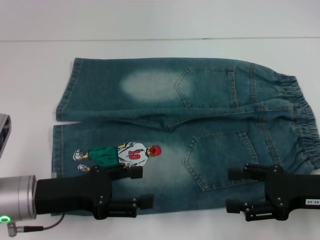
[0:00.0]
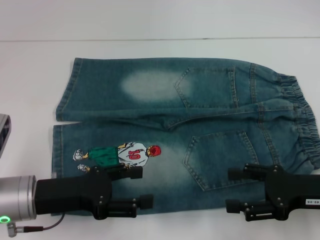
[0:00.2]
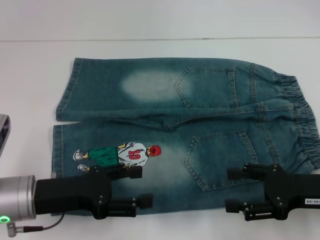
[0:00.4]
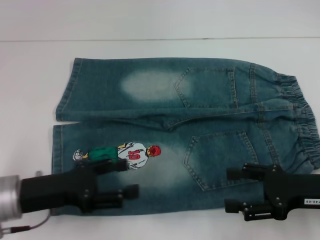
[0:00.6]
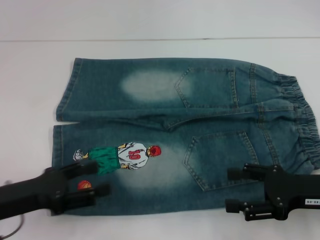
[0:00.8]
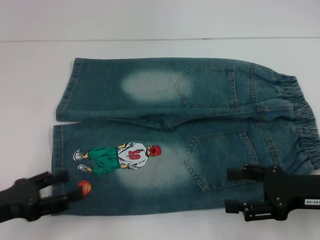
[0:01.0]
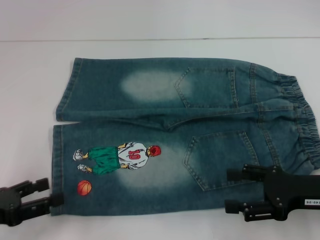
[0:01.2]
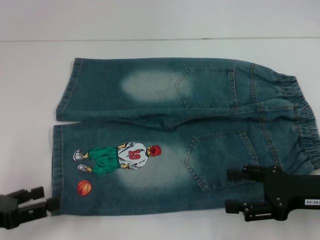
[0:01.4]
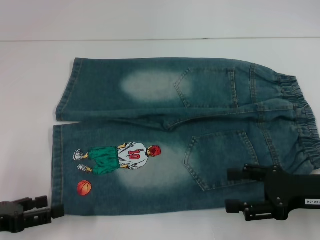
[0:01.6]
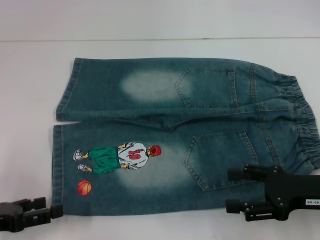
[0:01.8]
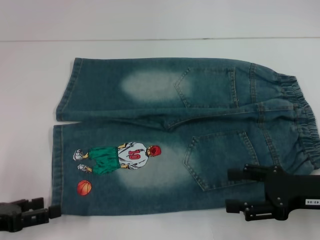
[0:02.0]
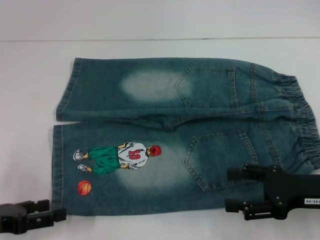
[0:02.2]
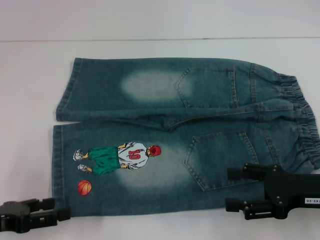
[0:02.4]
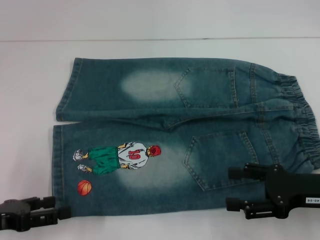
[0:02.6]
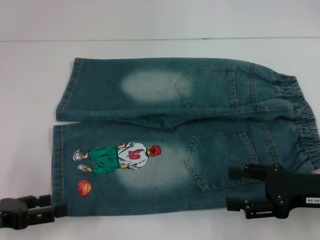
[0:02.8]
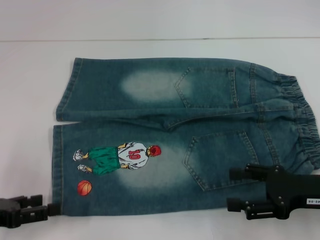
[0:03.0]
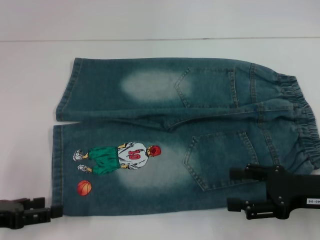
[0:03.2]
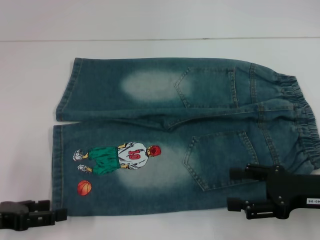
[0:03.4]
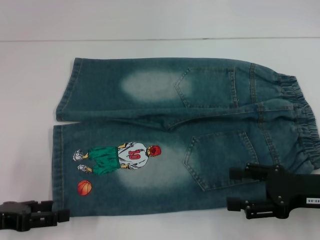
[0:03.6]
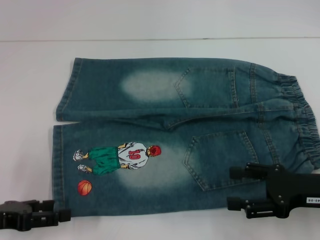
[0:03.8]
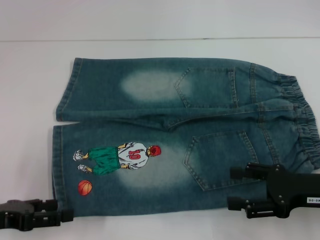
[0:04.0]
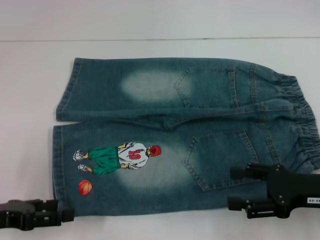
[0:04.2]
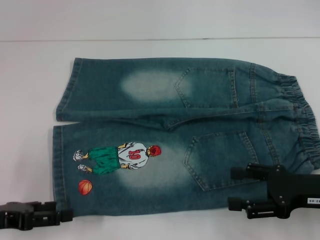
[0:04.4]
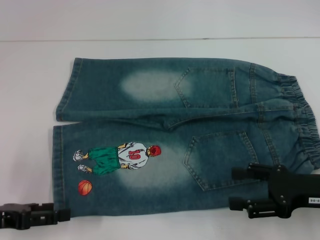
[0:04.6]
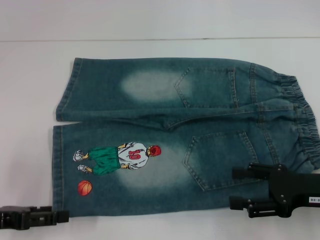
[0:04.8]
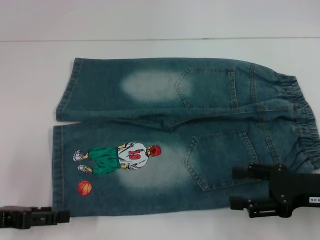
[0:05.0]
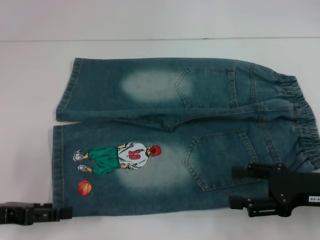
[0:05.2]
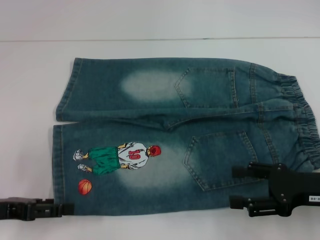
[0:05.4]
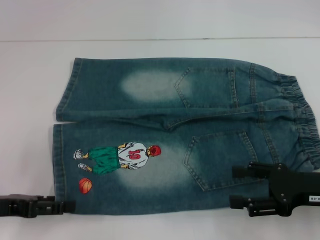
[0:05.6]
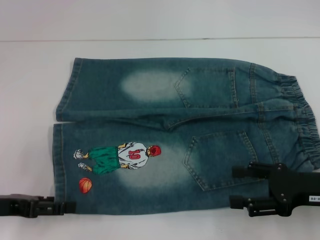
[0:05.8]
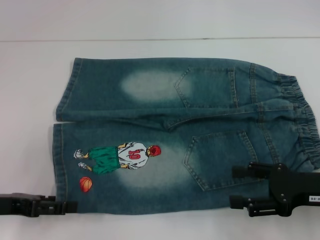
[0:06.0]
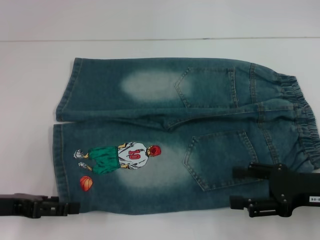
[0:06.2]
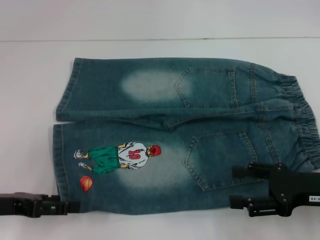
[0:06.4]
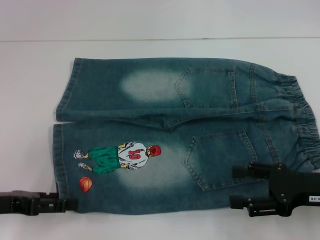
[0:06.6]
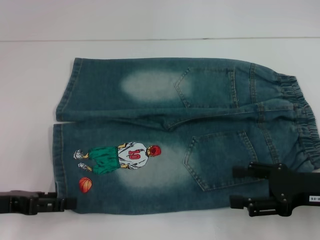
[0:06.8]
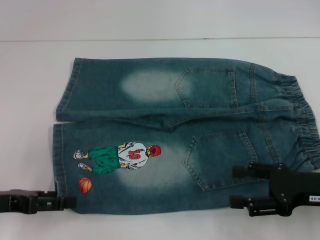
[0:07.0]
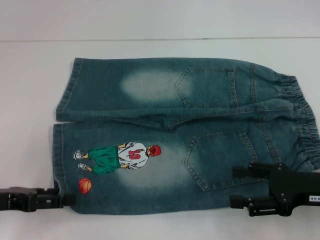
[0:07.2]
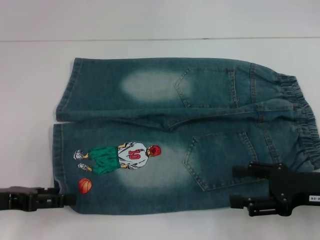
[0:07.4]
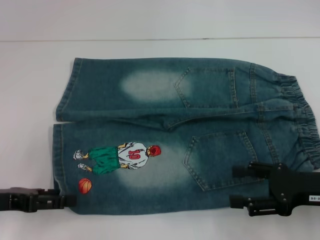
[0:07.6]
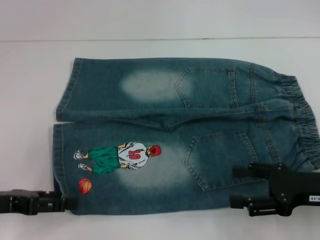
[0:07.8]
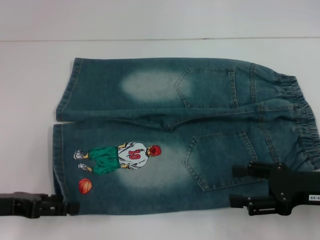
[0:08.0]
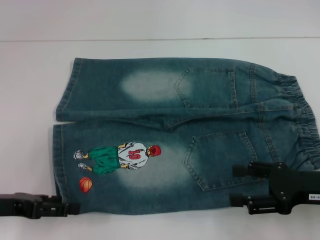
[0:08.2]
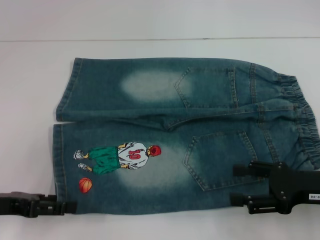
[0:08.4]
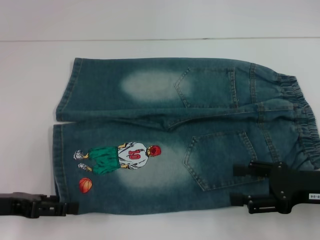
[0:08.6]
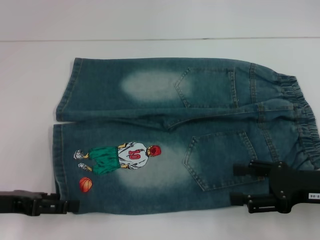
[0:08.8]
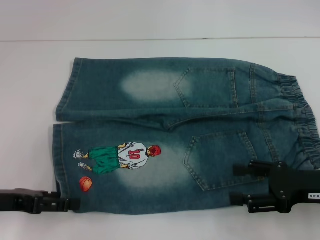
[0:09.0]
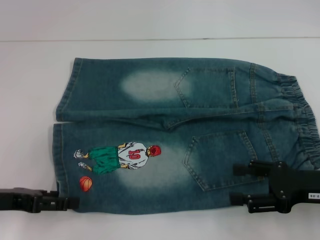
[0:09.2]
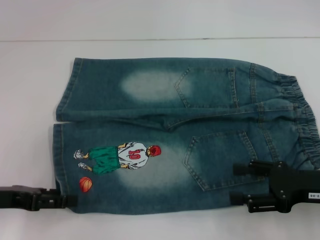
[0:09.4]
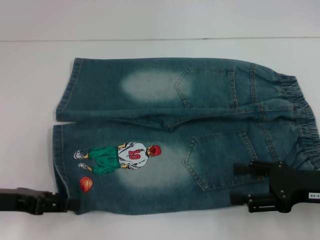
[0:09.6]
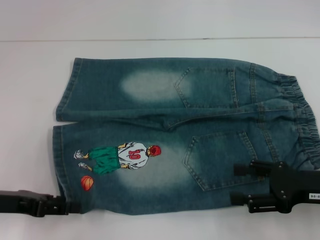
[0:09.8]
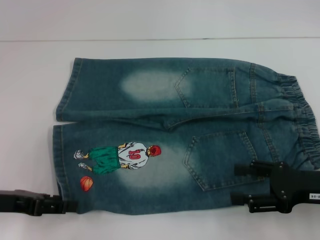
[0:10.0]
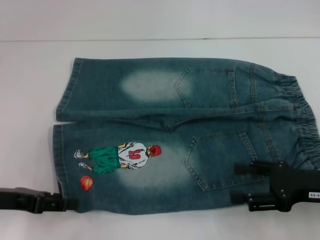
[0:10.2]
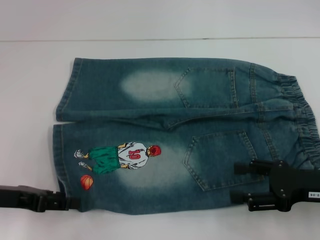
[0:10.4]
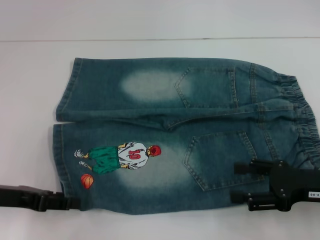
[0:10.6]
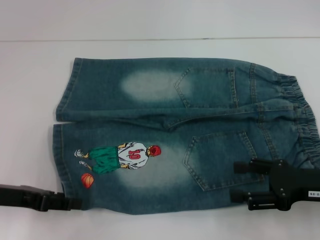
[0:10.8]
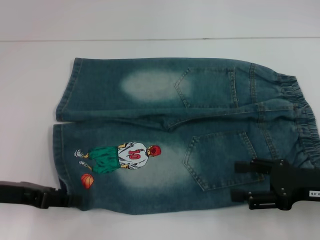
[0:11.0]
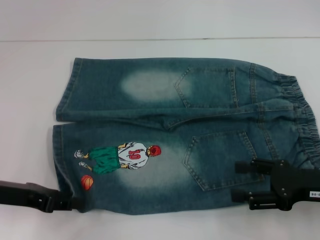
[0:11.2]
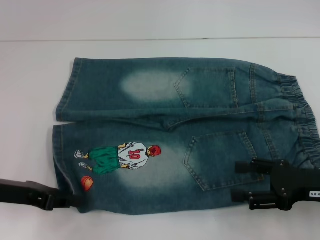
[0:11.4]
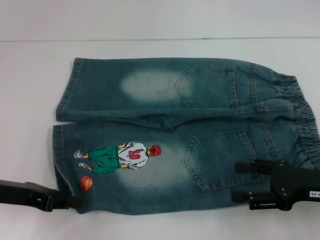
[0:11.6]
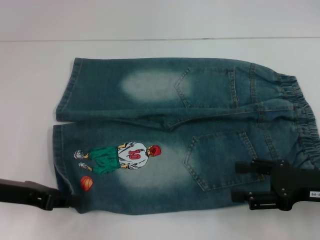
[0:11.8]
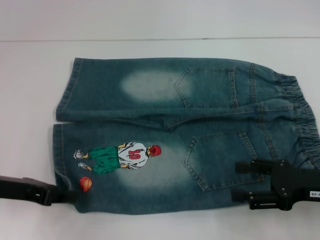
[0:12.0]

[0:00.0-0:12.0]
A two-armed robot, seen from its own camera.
Step, 0:00.0 to 0:03.4: Grab the lower left pant leg with your left hand.
0:00.0 to 0:01.6: The left gripper shifts approximately 10 cm to the left and backward.
0:01.6 to 0:03.0: The two grippers keep their place.
0:03.0 to 0:06.0: There are only small adjustments of the grippers.
0:06.0 to 0:09.0: Neither gripper changes place.
0:09.0 to 0:10.4: Both grippers stay about where they are.
0:10.4 to 0:12.0: The left gripper closes its fingers.

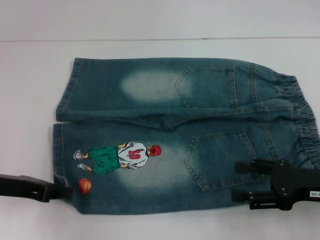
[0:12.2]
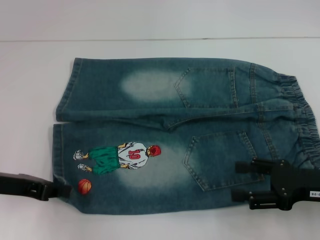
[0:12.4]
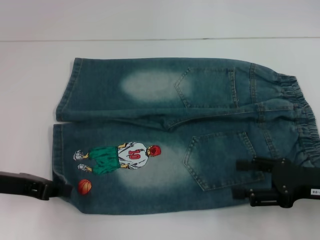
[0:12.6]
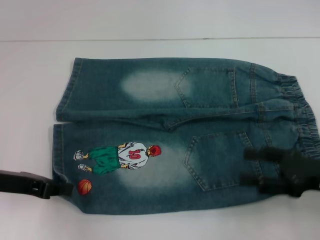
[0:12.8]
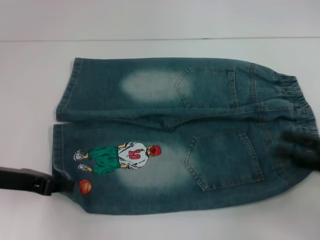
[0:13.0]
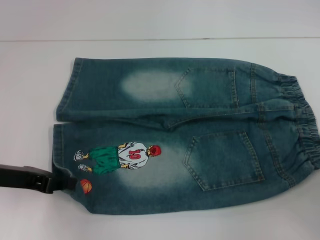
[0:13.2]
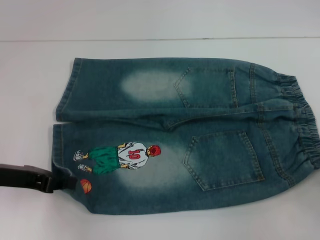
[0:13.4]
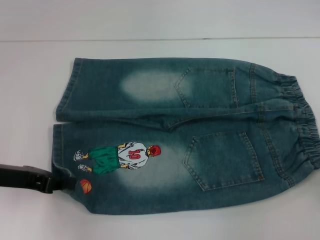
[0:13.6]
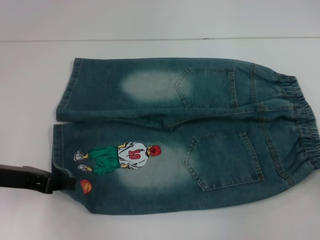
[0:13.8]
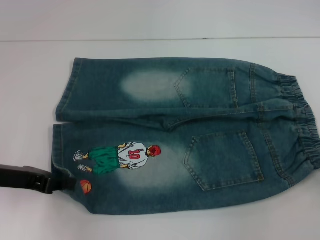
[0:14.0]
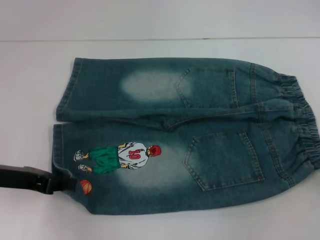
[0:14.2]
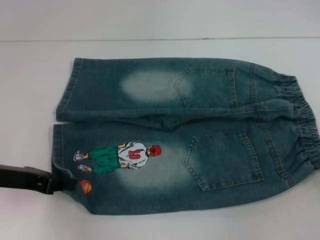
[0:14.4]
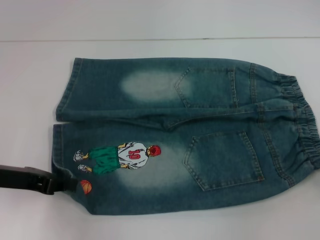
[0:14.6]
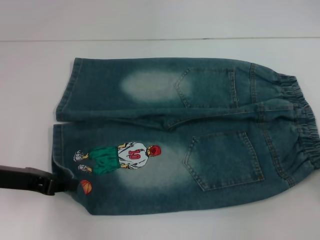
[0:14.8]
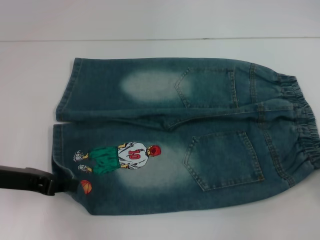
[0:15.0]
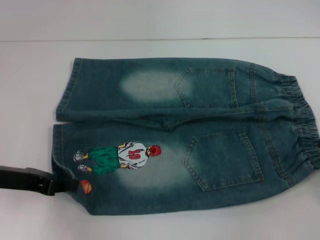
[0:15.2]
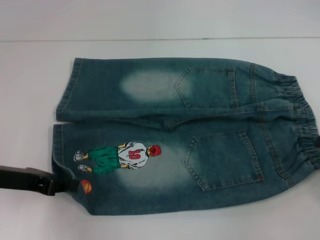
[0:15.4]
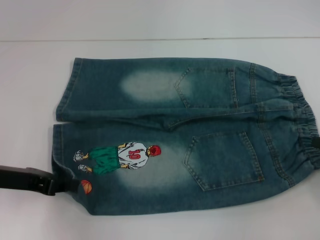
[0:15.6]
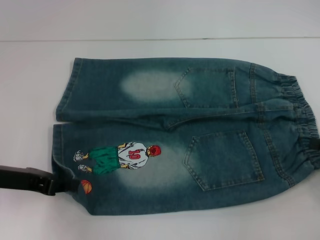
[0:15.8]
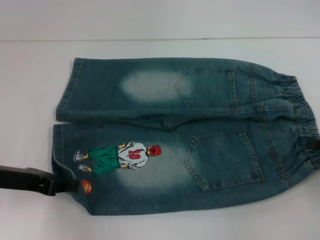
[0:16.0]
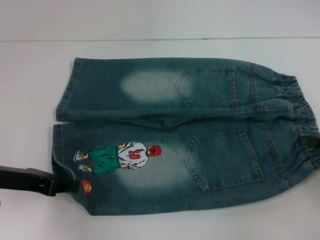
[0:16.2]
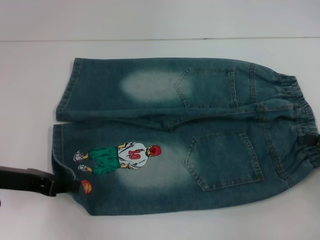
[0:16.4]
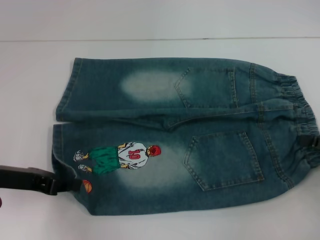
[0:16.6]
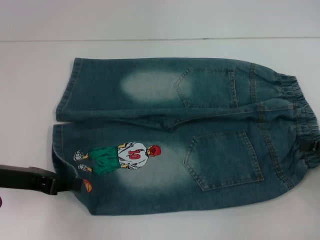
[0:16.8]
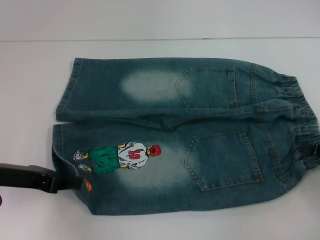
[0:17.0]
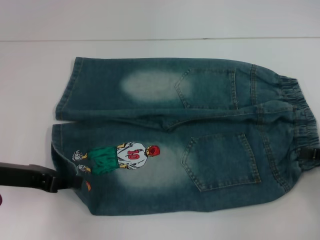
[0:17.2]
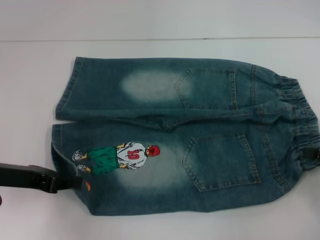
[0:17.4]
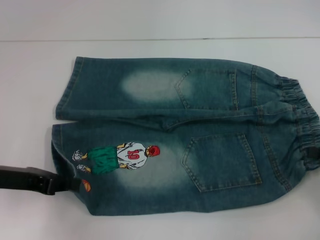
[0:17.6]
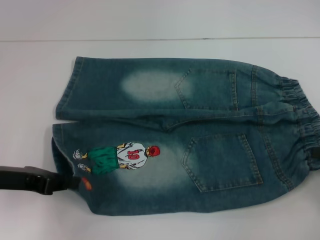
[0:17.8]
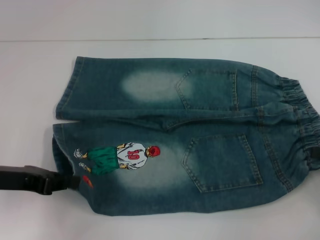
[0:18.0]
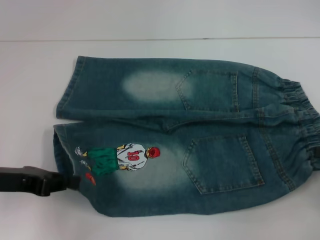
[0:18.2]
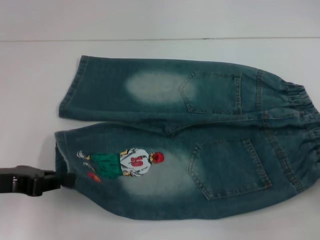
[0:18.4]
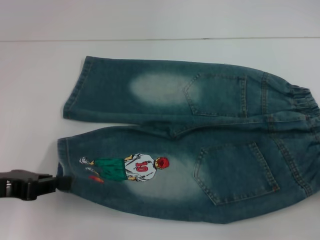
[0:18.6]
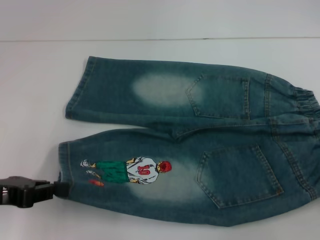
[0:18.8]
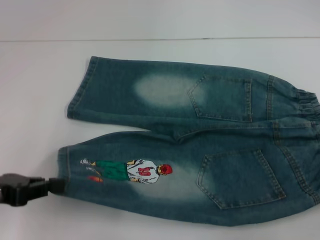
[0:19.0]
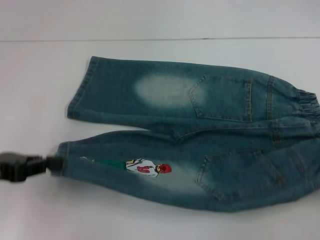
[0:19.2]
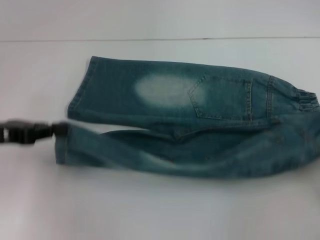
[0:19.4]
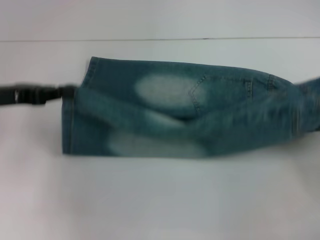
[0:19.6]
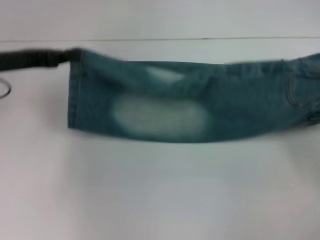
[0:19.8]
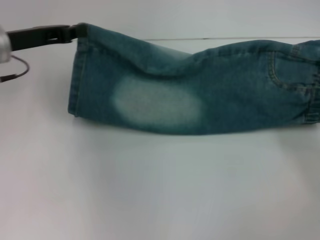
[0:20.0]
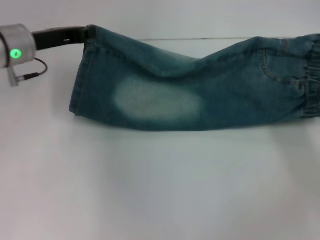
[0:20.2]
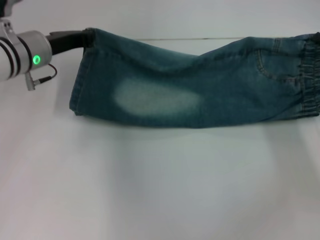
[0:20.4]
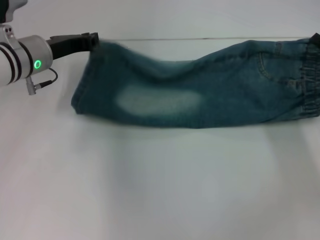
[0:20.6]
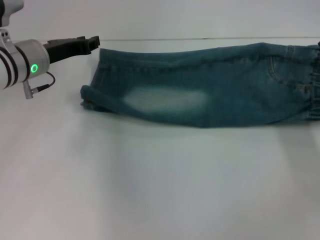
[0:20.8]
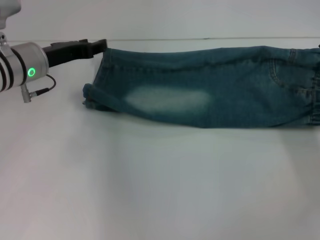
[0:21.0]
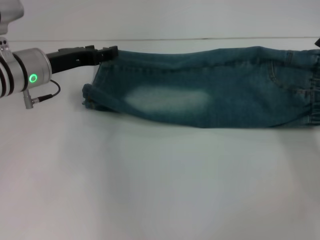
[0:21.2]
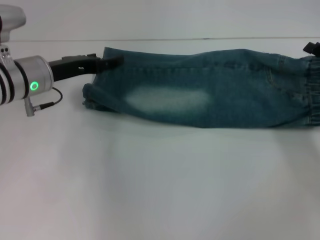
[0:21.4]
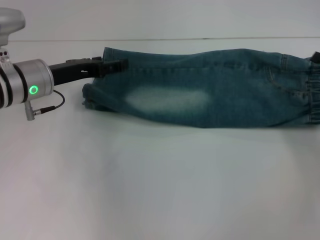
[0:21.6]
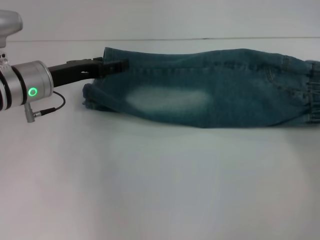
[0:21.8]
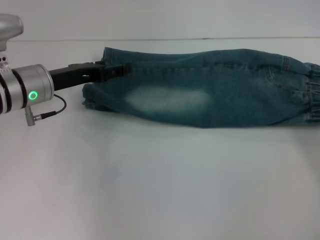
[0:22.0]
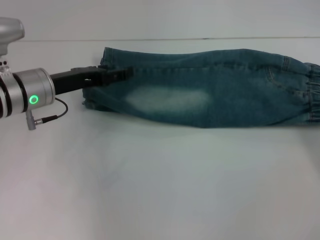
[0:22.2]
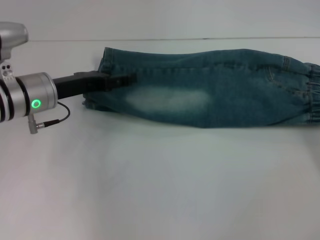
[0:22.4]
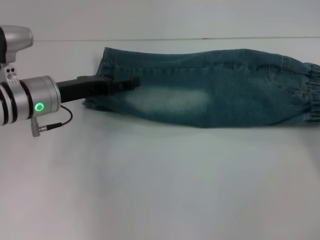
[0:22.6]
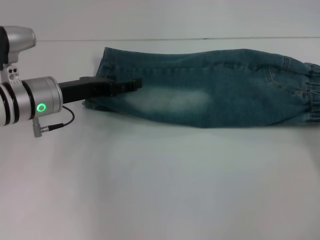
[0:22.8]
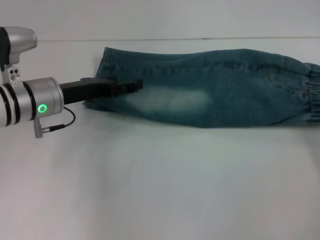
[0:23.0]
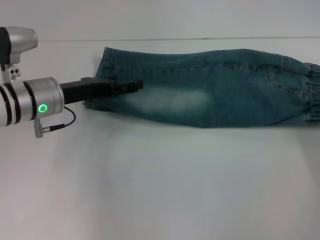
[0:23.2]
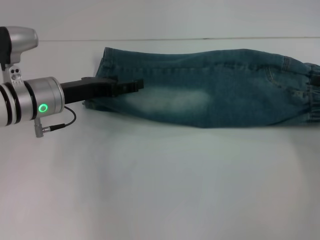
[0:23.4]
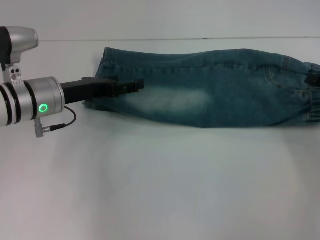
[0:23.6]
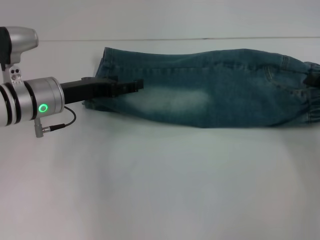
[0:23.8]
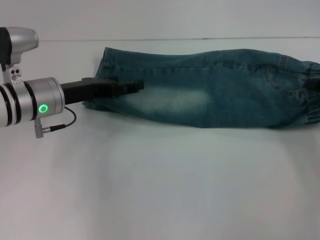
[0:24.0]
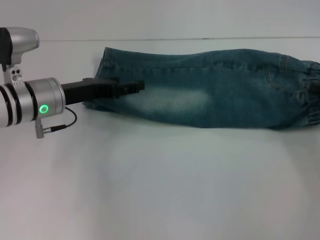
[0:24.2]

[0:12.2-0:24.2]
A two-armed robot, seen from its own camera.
Step, 0:12.2 to 0:17.2: Hold the lower right waistband with your right hand.
Step, 0:17.6 to 0:21.2: Fold upward with your right hand.
0:12.2 to 0:13.8: The right gripper moves to the right and backward, roughly 15 cm.
0:16.6 to 0:18.2: The right gripper closes.
0:18.2 to 0:19.8: The left gripper travels forward and upward by approximately 10 cm. Meanwhile the right gripper shifts about 5 cm forward.
0:19.8 to 0:21.2: The left gripper heads to the right and downward, covering approximately 10 cm, and opens, while the right gripper heads forward, covering roughly 5 cm, and opens.
0:21.2 to 0:22.6: The left gripper opens. The right gripper travels backward by approximately 5 cm.
0:22.6 to 0:24.2: The right gripper closes.
